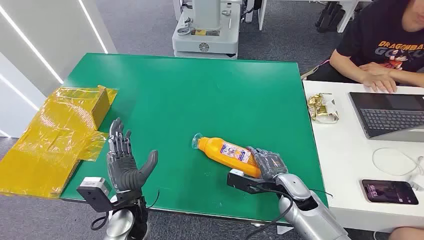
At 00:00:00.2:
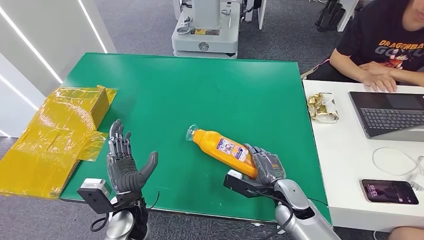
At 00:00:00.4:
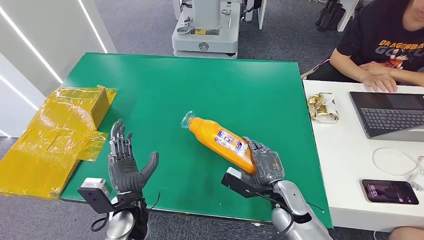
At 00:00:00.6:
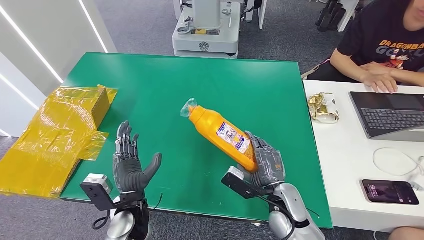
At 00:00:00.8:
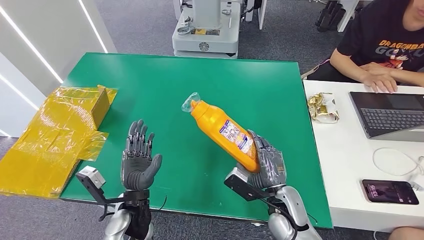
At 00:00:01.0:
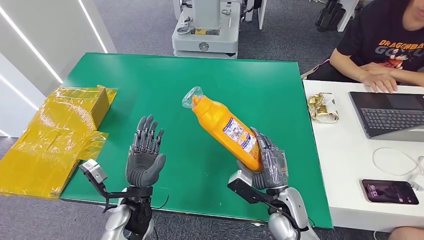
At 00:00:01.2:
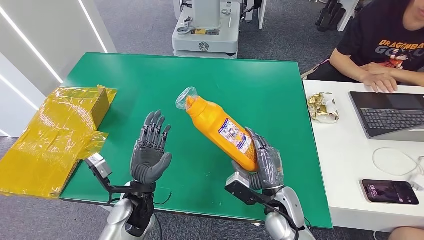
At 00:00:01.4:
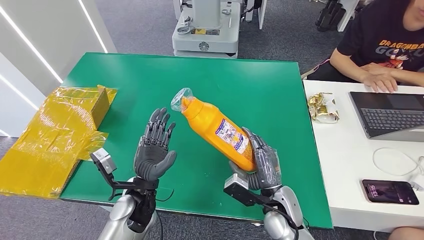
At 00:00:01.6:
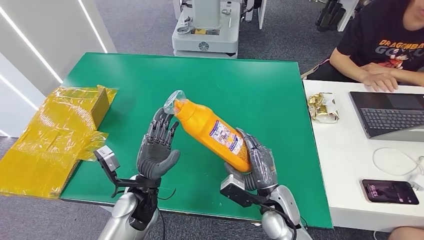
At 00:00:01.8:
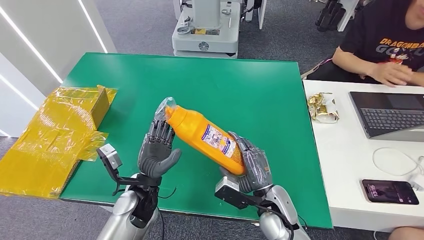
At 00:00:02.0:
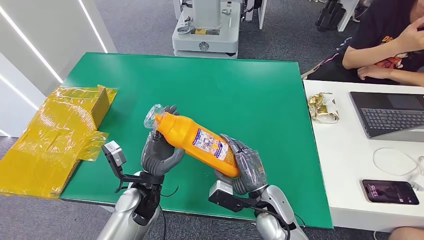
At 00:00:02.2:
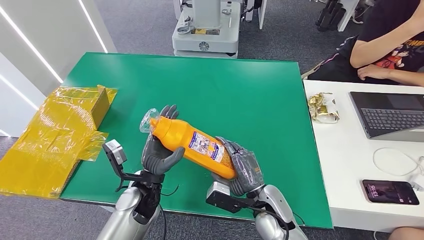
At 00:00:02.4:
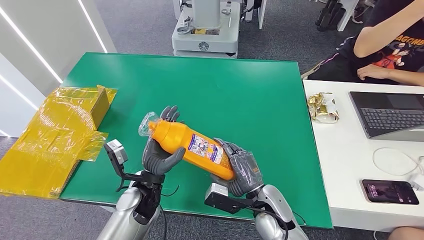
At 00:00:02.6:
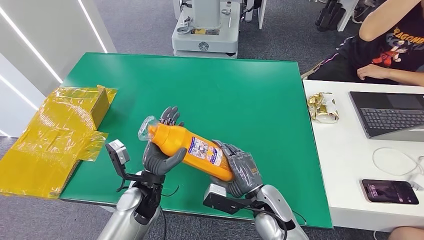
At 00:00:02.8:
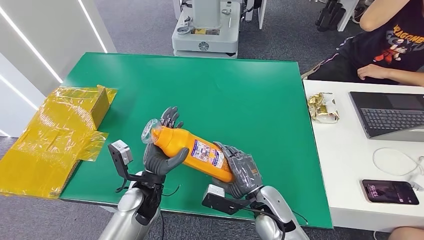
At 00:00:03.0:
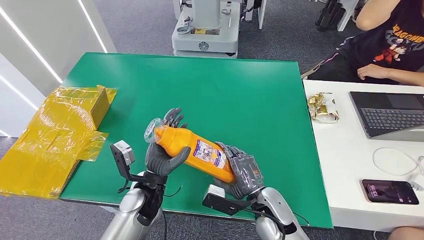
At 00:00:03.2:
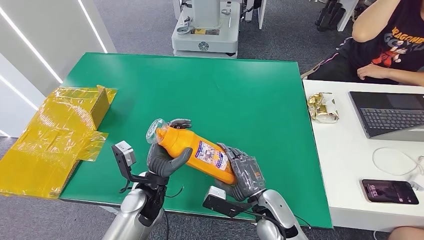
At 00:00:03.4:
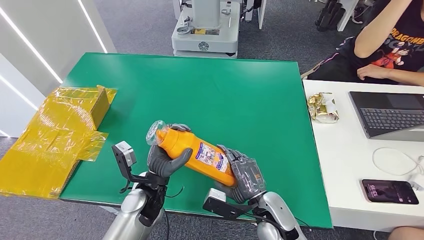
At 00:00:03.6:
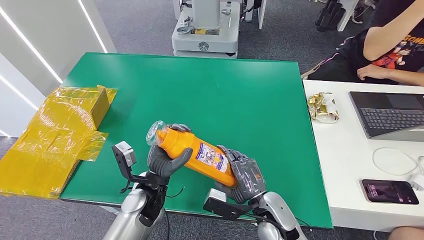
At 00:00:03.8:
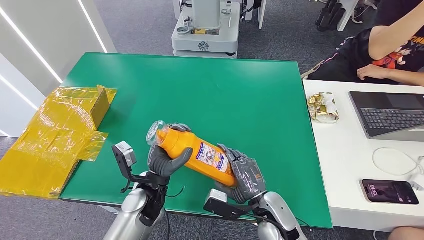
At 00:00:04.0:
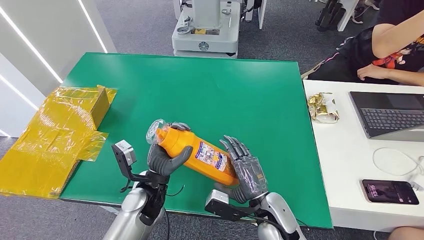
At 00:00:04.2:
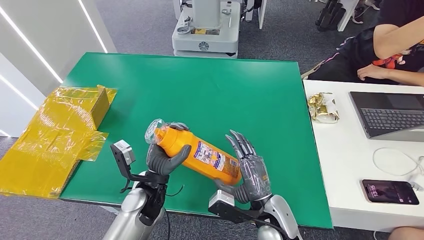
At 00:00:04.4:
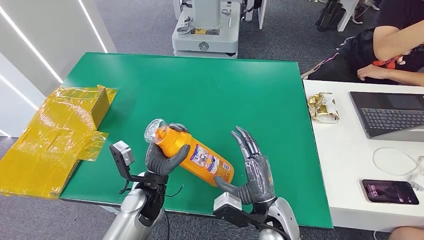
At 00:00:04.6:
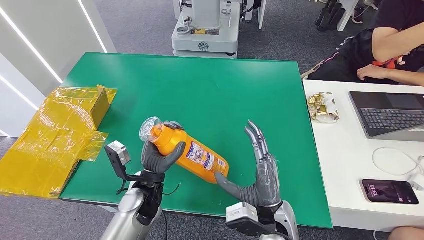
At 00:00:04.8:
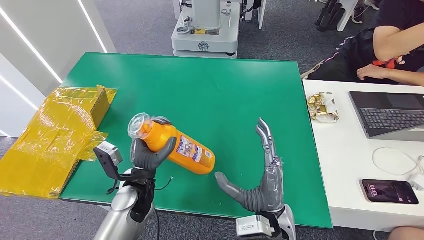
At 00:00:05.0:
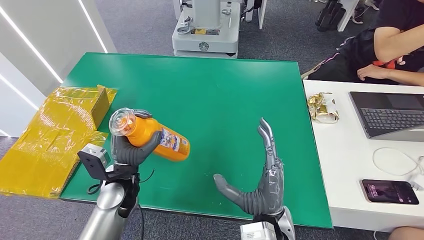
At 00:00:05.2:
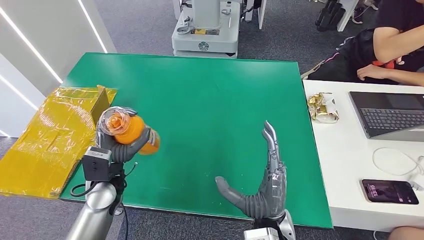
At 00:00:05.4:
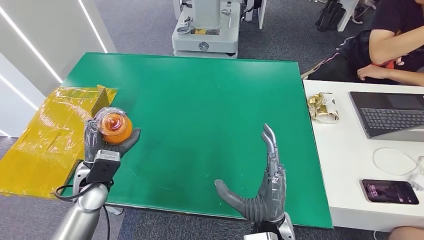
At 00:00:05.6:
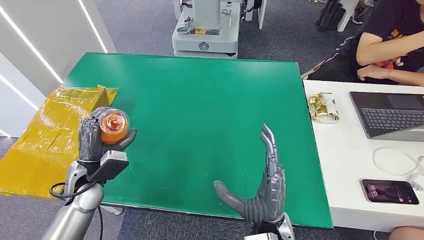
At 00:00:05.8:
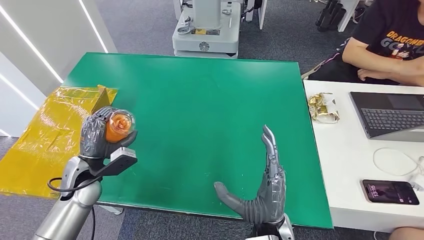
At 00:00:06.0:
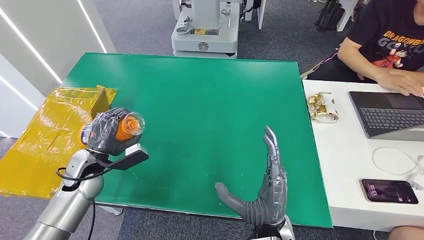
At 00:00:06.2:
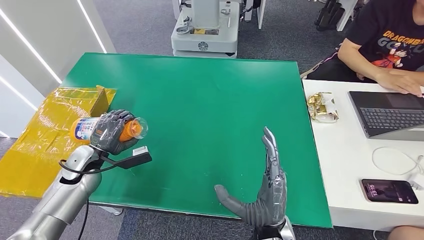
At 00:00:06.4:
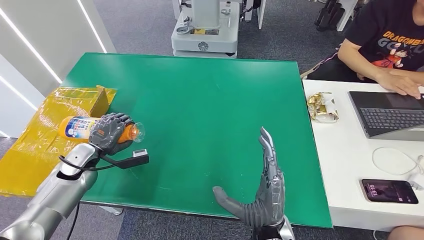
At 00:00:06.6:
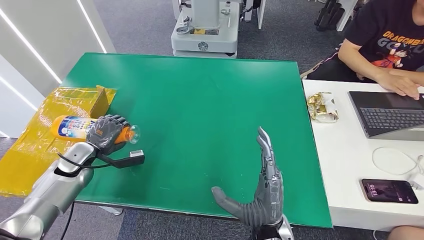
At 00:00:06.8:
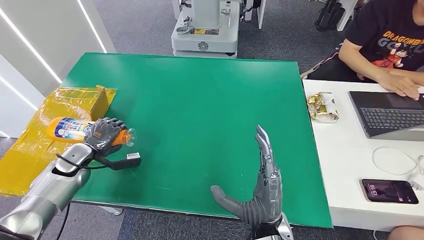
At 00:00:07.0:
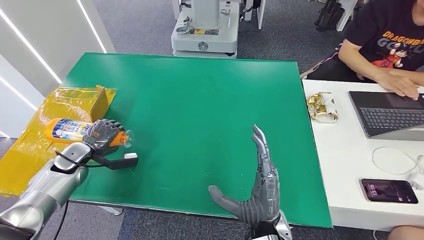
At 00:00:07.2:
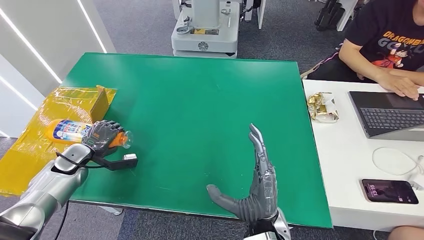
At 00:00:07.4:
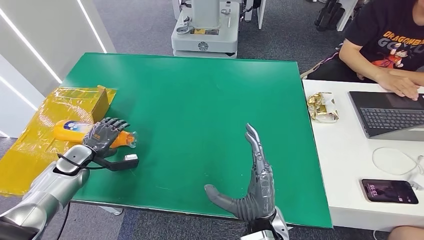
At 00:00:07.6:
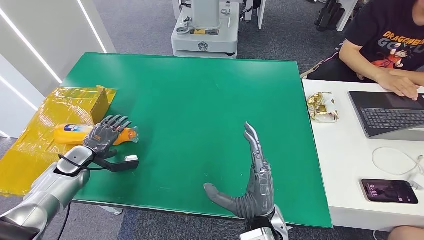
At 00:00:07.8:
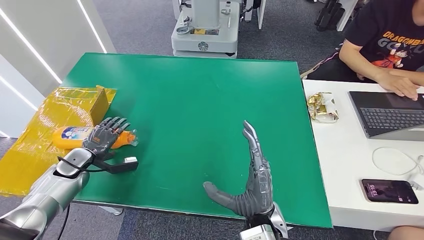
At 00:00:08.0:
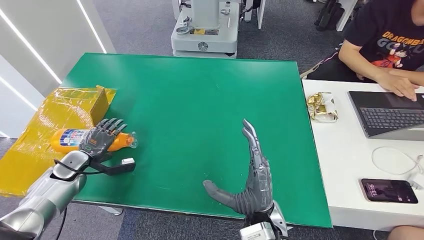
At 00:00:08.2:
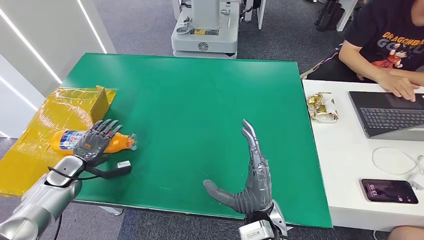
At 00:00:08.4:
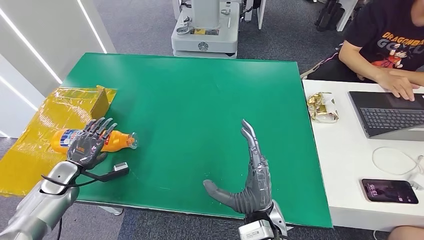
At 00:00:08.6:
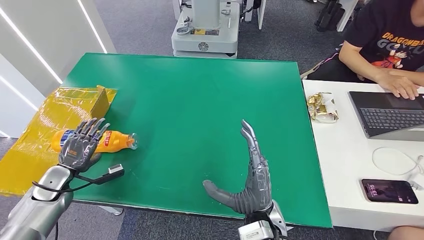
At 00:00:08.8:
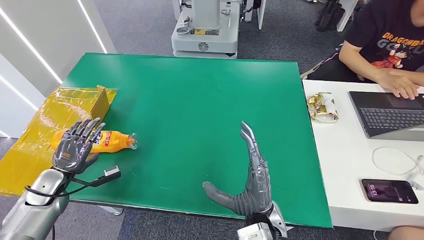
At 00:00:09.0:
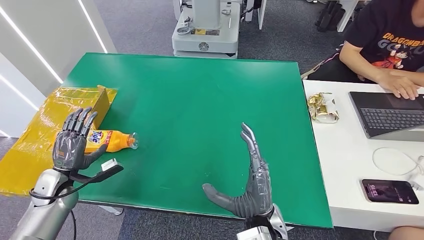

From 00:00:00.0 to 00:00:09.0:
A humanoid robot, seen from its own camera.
Step, from 00:00:00.0 to 00:00:02.4: Pick up the bottle from the table.
Step, from 00:00:02.6 to 00:00:09.0: Turn the bottle to the front side.
From 00:00:01.6 to 00:00:03.0: The hands stay close to where they were, moving slightly.
From 00:00:06.0 to 00:00:07.6: The left hand moves to the left and downward, about 10 cm.
From 00:00:07.6 to 00:00:09.0: The left hand moves backward, about 5 cm.

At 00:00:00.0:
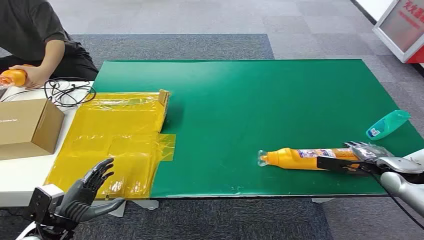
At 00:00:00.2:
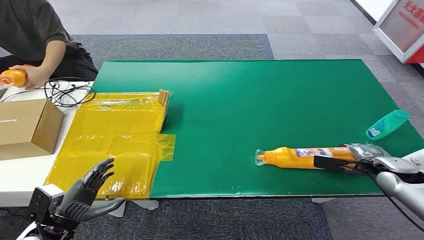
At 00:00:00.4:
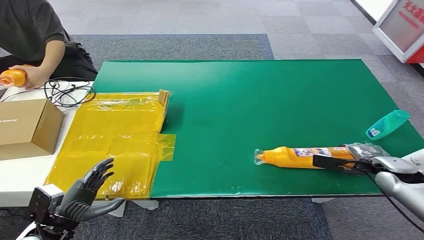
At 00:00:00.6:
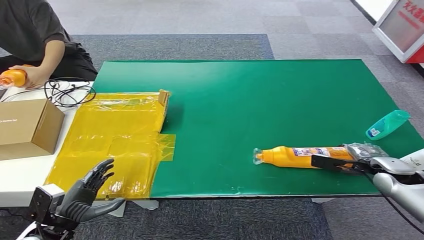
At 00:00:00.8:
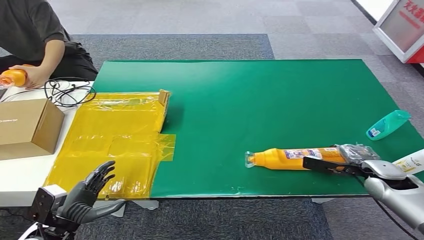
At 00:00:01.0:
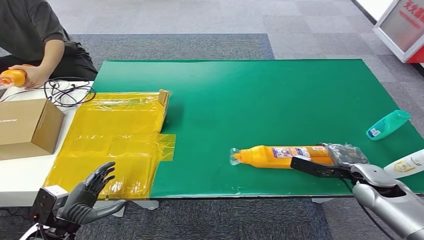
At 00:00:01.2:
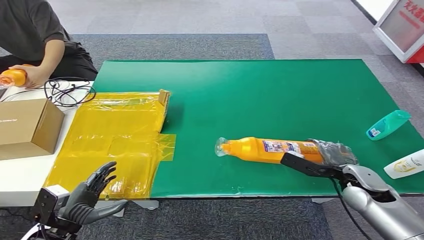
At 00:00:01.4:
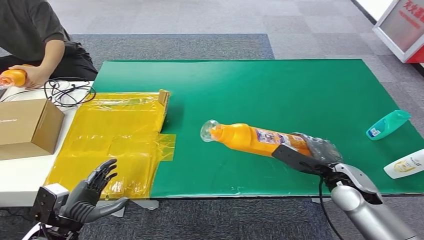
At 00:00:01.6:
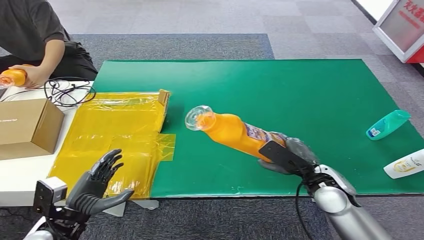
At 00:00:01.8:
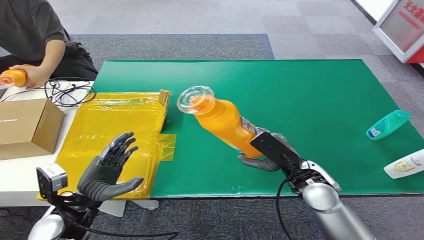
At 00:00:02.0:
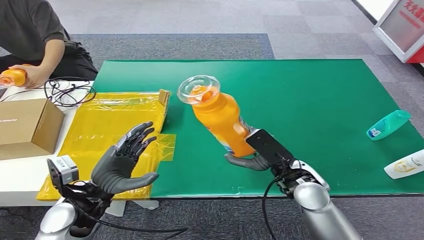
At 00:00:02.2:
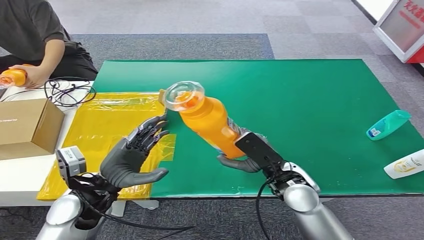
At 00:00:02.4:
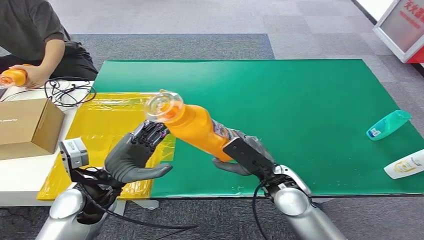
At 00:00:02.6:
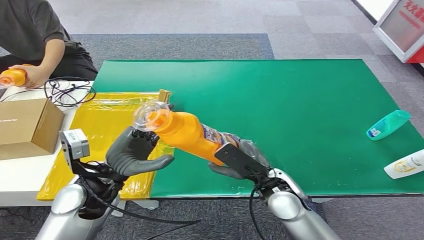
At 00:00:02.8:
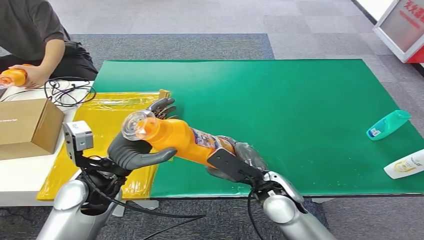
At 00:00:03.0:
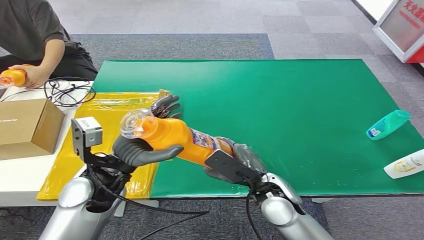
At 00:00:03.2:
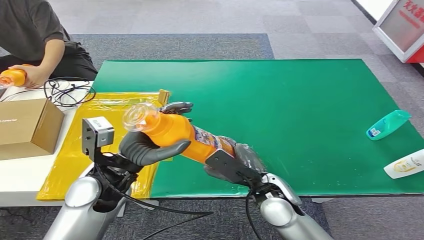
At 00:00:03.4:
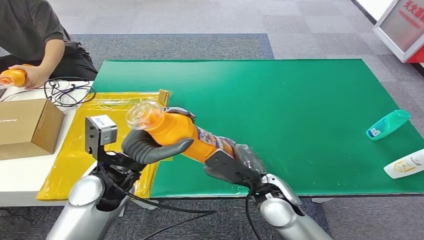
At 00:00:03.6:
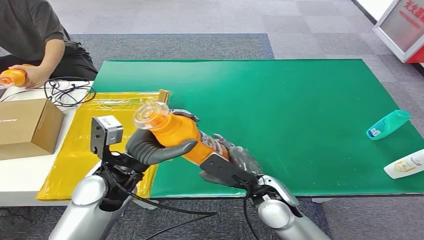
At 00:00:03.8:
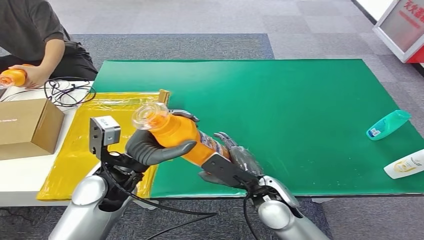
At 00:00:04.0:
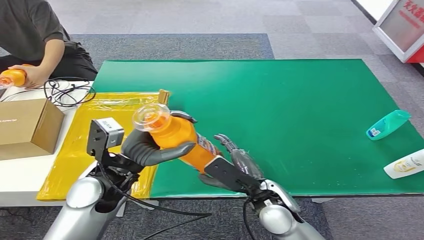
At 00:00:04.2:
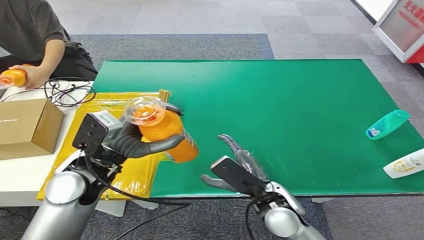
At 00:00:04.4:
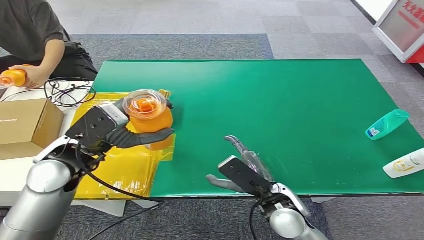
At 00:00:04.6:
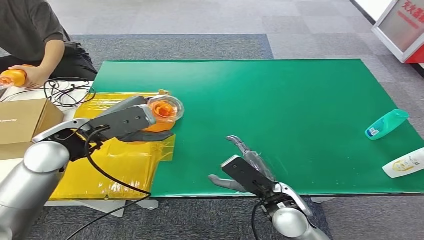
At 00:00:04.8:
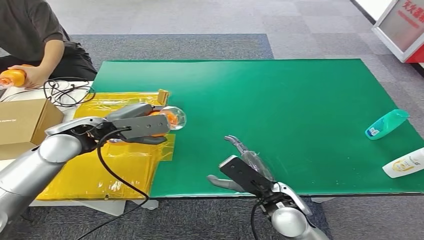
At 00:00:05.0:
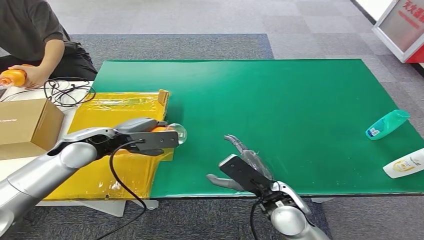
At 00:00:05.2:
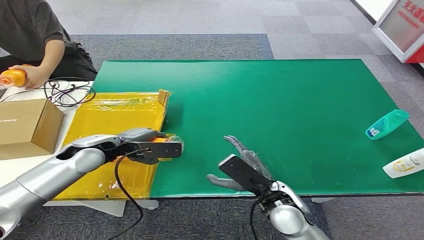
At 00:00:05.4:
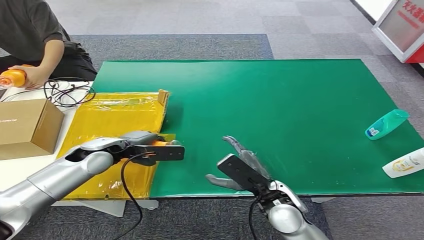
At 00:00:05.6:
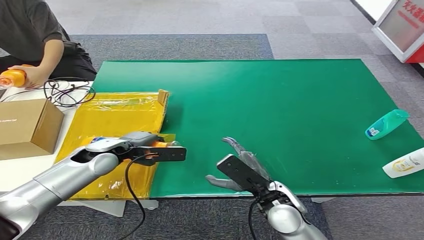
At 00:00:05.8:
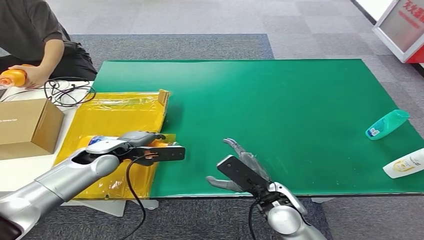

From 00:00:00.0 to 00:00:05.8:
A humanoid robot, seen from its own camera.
Step, from 00:00:00.0 to 00:00:02.2: Pick up the bottle from the table.
Step, from 00:00:02.4 to 00:00:05.8: Turn the bottle to the front side.
From 00:00:02.8 to 00:00:04.4: The left hand moves upward and forward, some 10 cm.
From 00:00:04.4 to 00:00:05.8: The left hand goes roughly 10 cm downward and forward.
